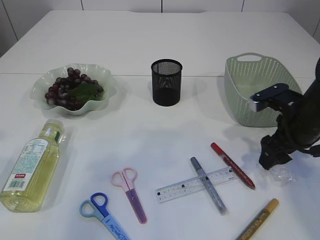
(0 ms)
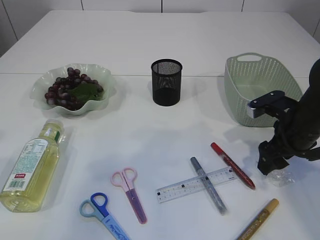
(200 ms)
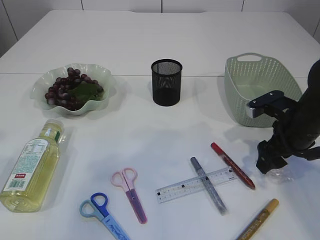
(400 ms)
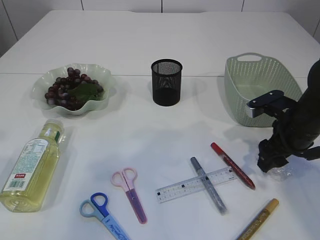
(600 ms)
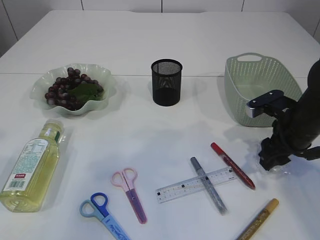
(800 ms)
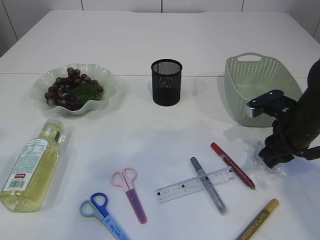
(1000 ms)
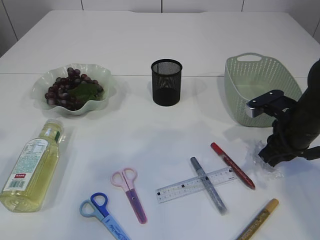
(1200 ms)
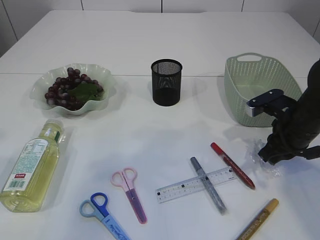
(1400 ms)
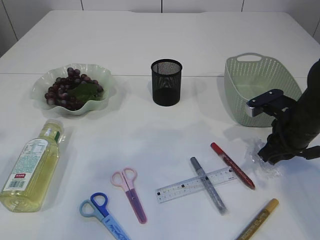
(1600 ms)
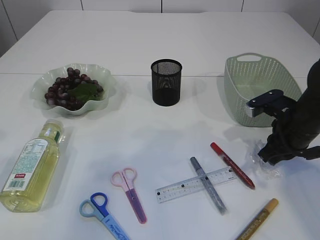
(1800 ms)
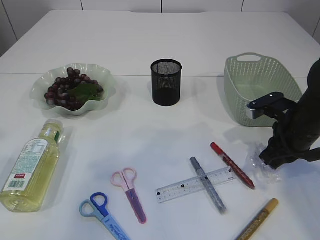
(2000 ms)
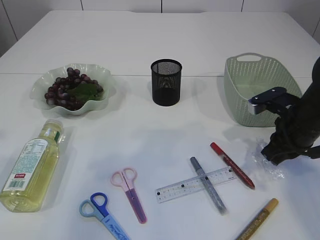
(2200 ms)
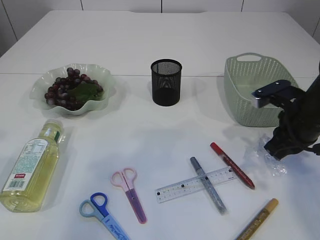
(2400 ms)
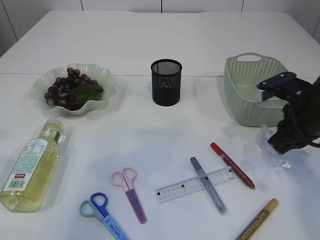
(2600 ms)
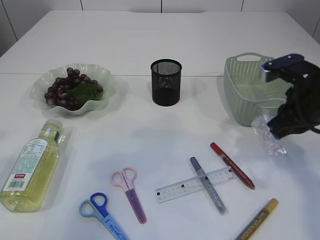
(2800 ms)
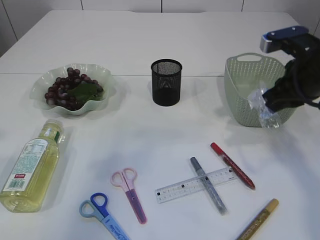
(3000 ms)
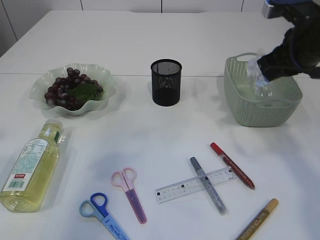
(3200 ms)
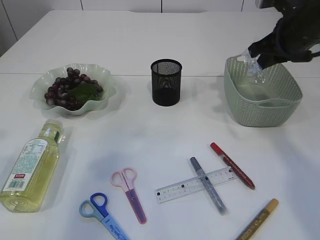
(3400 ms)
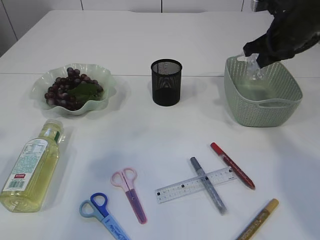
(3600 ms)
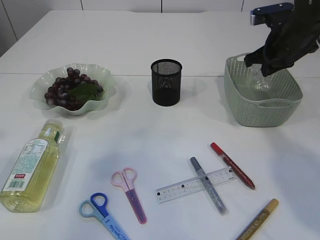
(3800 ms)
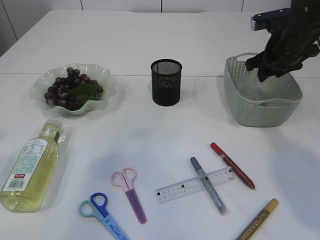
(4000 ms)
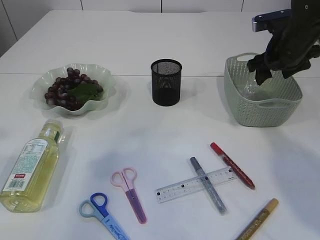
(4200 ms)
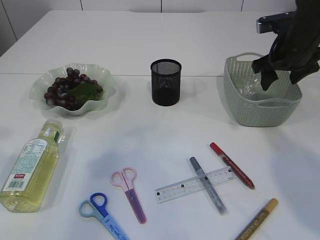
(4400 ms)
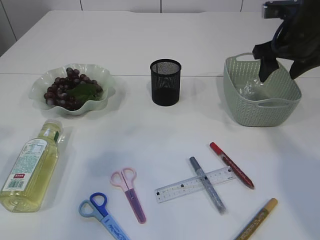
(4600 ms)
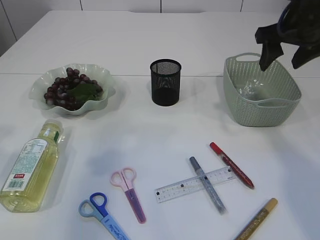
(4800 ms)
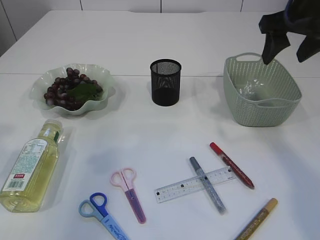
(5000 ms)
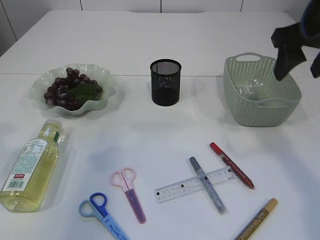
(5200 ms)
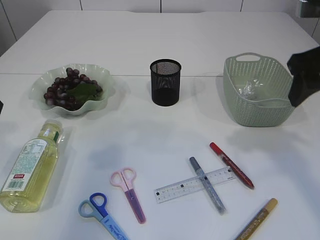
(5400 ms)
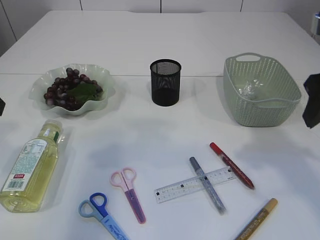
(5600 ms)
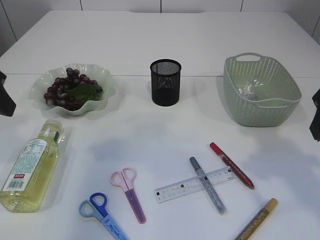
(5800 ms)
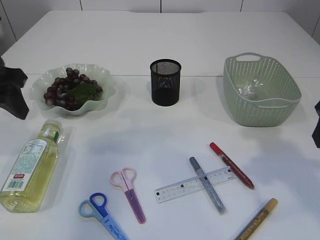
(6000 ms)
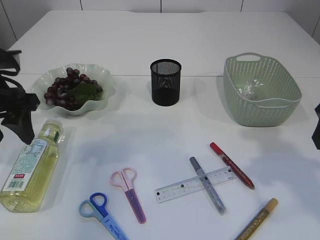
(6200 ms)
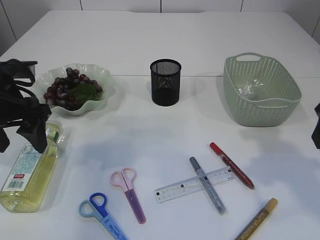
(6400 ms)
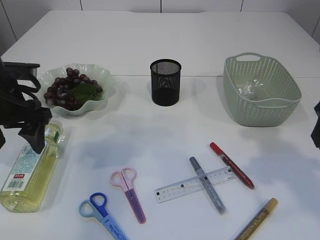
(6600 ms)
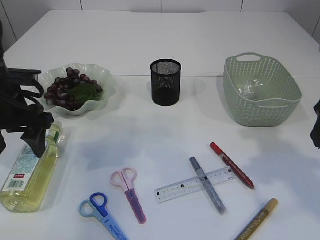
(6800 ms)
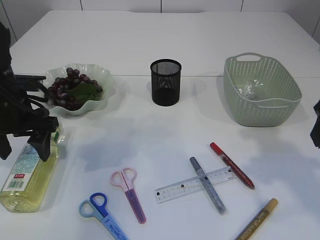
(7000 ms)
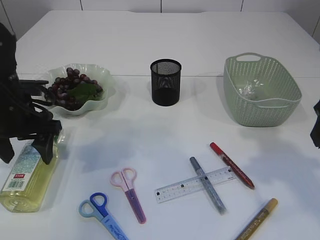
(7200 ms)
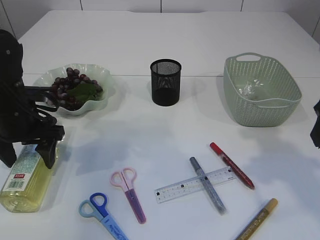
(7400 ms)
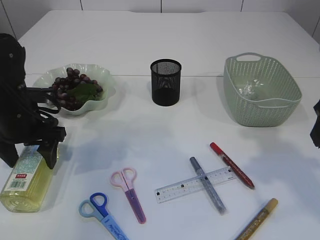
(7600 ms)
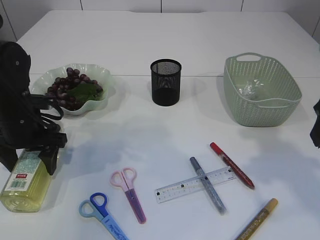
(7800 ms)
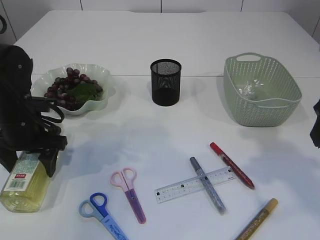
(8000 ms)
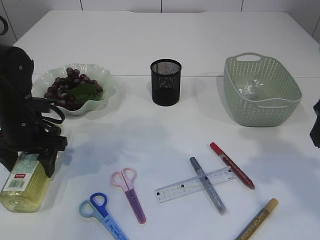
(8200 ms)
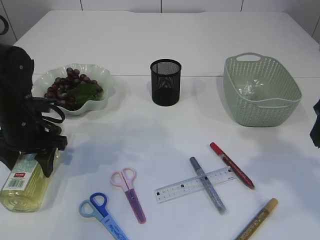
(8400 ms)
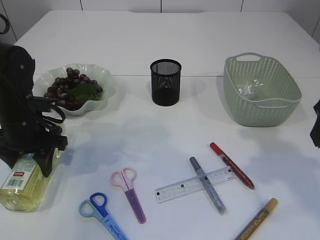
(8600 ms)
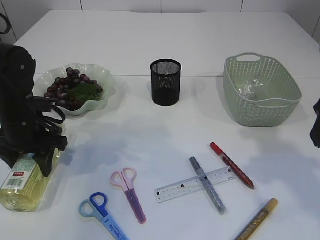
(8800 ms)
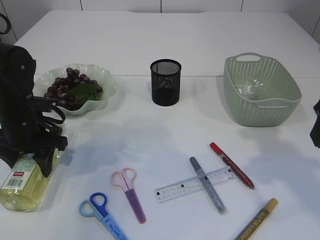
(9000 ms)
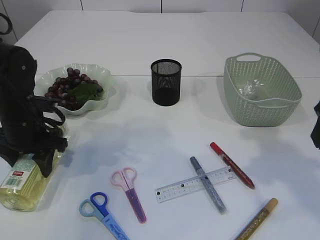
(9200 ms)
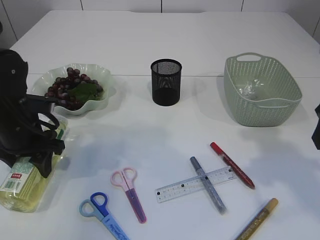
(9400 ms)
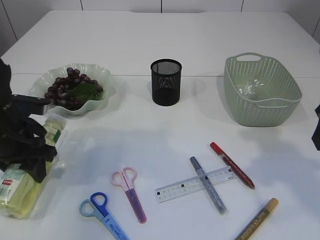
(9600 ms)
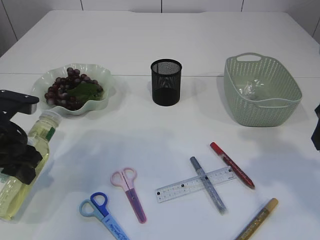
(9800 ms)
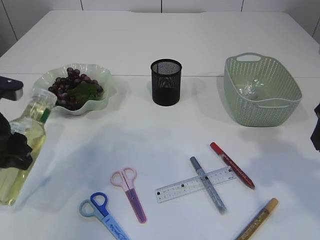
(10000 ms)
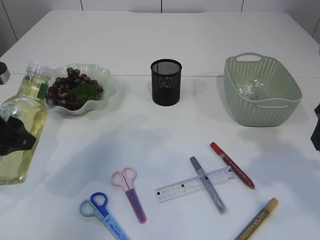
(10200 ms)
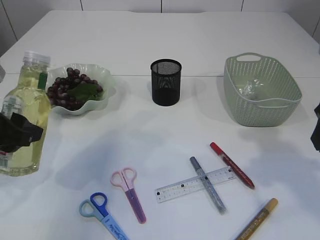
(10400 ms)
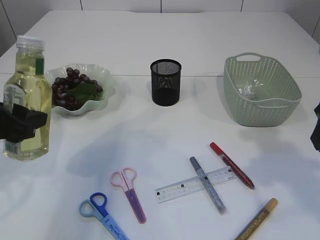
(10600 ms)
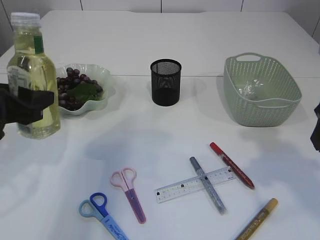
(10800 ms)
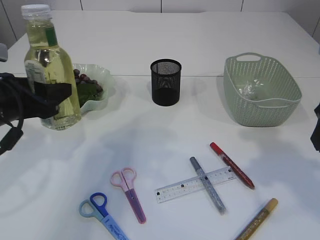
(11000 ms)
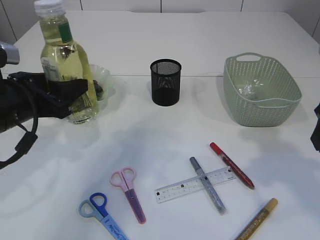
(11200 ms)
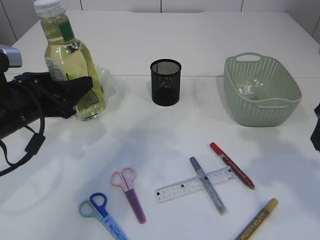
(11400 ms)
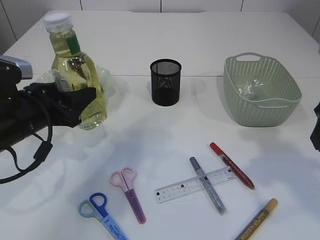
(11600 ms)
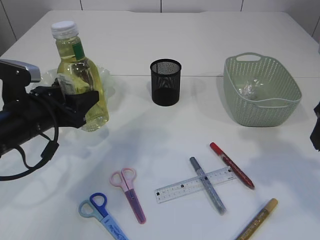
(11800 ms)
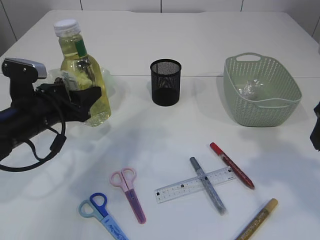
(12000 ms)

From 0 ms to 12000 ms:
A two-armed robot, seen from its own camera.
Step, from 0 ms to 2600 ms: Pick up the plastic.
Step, from 2800 ms to 5000 ms: Place the plastic in the basket.
Step, from 5200 ms to 10200 ms: Pick up the bottle with the left arm.
From 0 ms to 1600 ms: The right gripper closes up.
From 1600 ms to 3000 ms: The right gripper heads upward, covering roughly 10 cm.
From 3000 ms to 4400 ms: The right gripper shifts some 10 cm forward, and opens its fingers.
From 4400 ms to 6000 ms: The right gripper goes approximately 20 cm backward, while the left gripper shifts approximately 10 cm forward.
From 6000 ms to 7600 ms: The left gripper goes about 10 cm downward, and opens.
From 7600 ms to 9000 ms: The left gripper closes its fingers.
From 9000 ms to 10400 ms: The left gripper travels backward and upward by about 15 cm.
From 10400 ms to 12000 ms: The left gripper goes about 10 cm forward and downward.

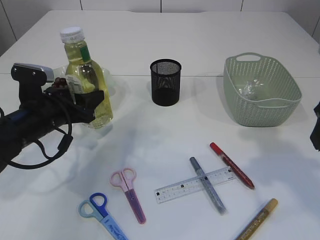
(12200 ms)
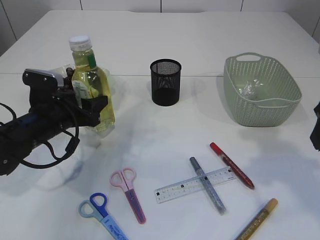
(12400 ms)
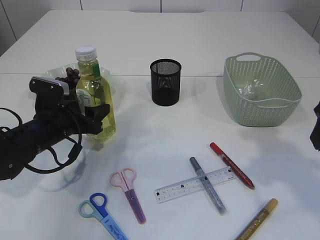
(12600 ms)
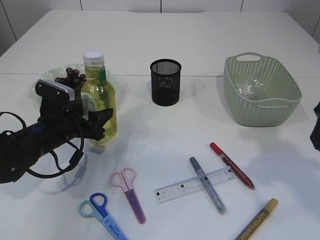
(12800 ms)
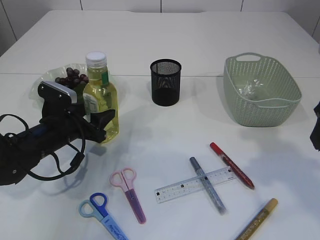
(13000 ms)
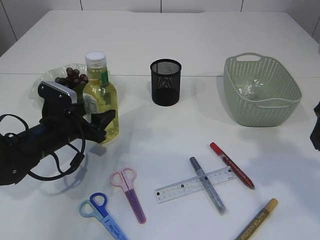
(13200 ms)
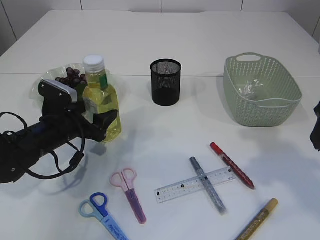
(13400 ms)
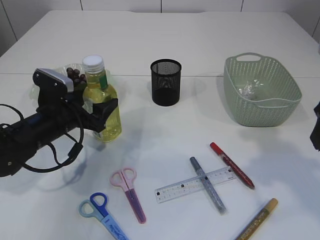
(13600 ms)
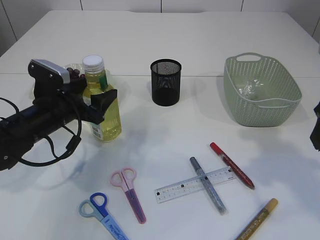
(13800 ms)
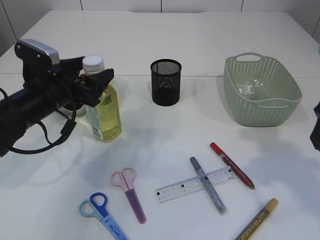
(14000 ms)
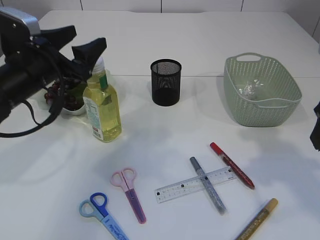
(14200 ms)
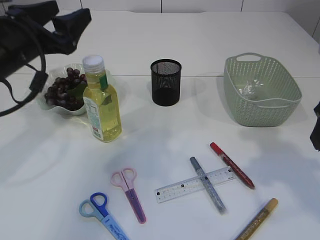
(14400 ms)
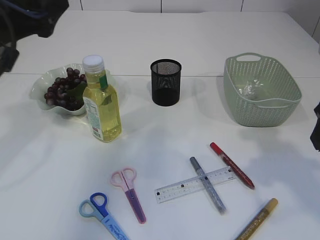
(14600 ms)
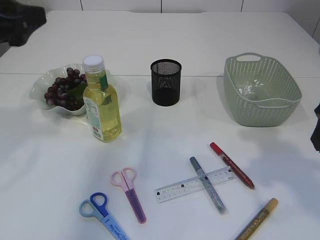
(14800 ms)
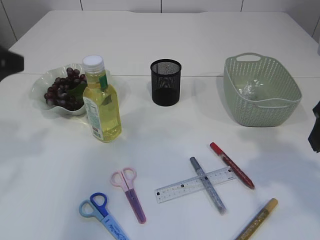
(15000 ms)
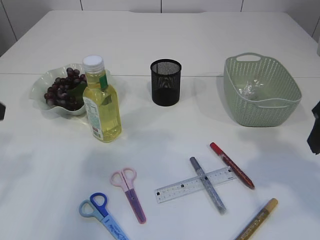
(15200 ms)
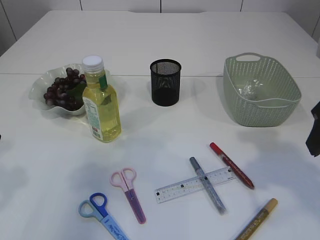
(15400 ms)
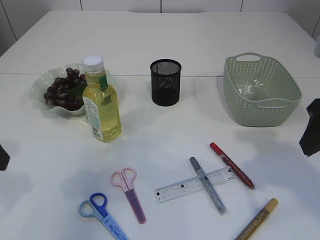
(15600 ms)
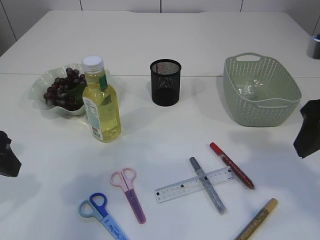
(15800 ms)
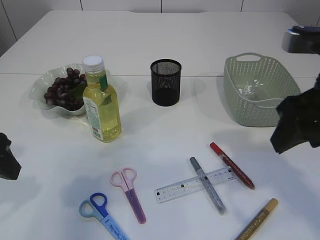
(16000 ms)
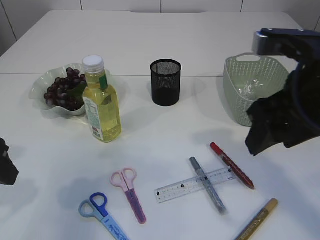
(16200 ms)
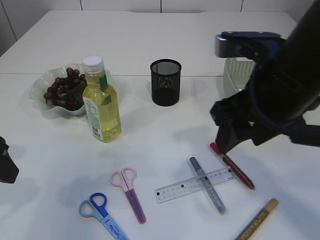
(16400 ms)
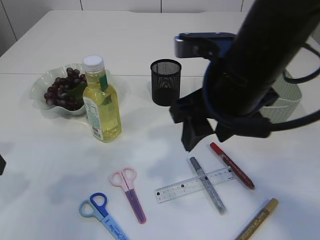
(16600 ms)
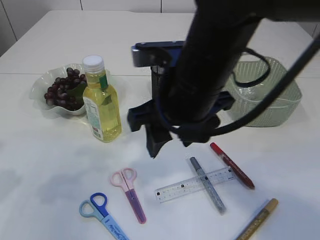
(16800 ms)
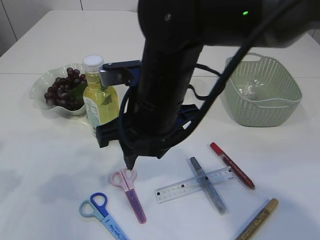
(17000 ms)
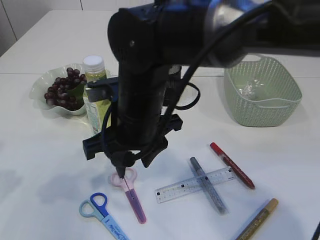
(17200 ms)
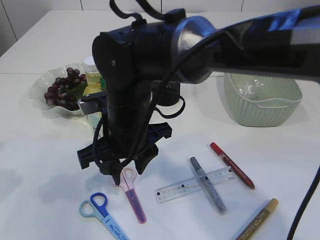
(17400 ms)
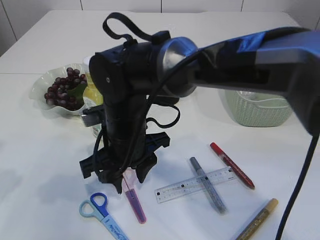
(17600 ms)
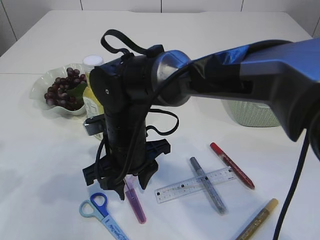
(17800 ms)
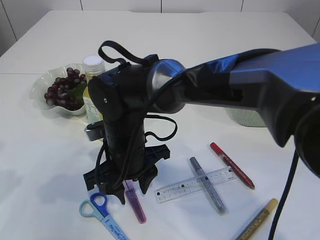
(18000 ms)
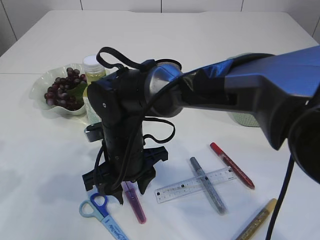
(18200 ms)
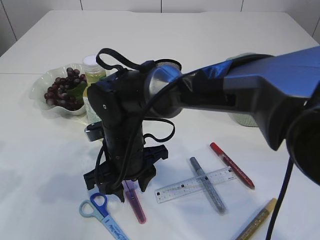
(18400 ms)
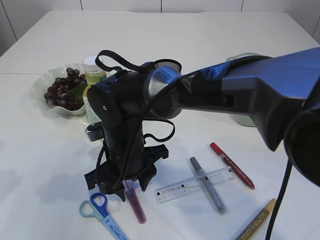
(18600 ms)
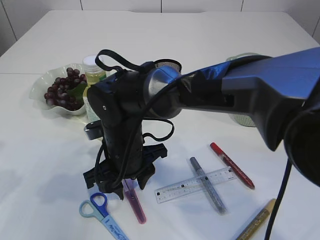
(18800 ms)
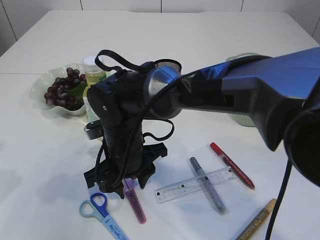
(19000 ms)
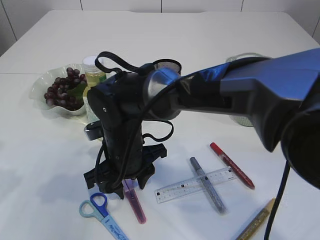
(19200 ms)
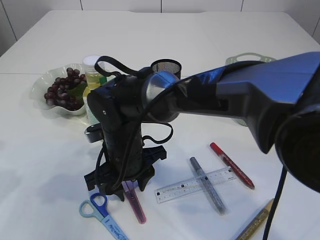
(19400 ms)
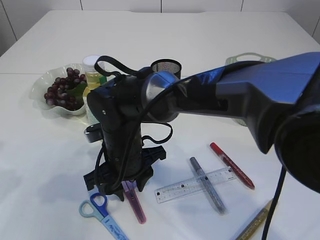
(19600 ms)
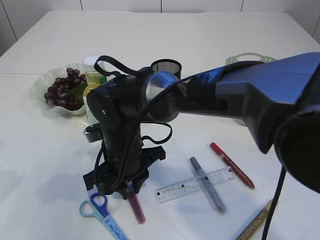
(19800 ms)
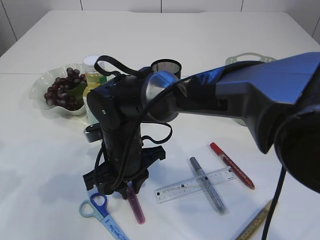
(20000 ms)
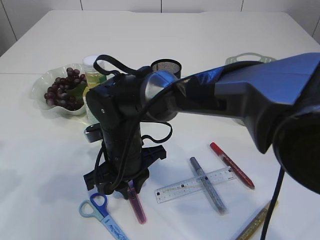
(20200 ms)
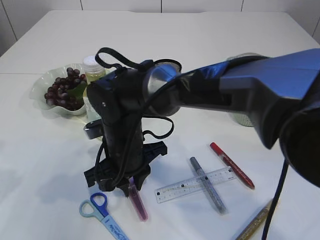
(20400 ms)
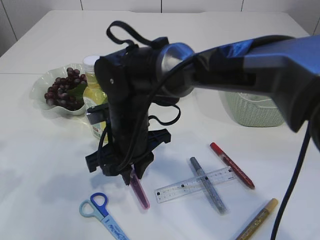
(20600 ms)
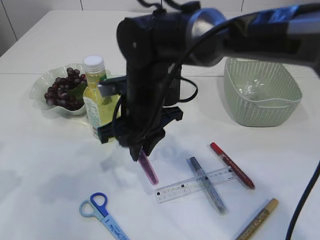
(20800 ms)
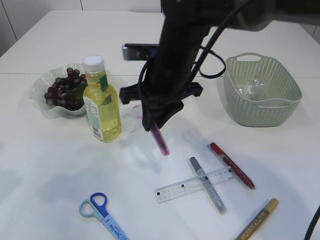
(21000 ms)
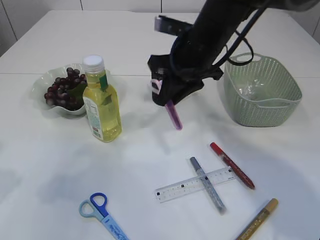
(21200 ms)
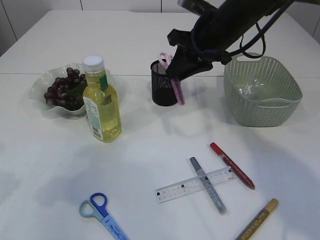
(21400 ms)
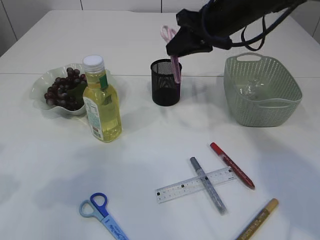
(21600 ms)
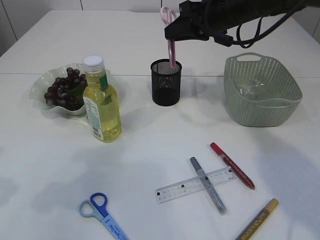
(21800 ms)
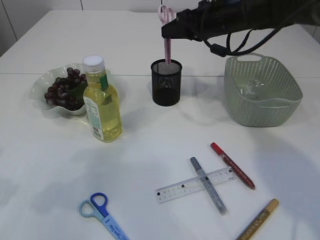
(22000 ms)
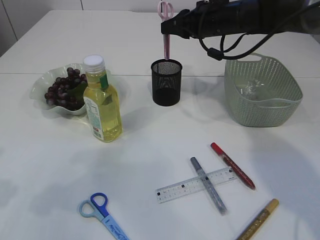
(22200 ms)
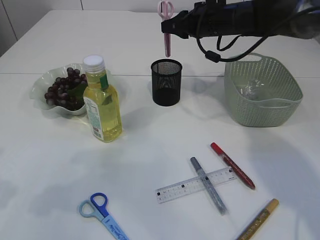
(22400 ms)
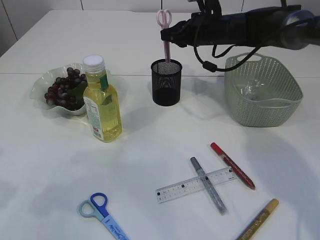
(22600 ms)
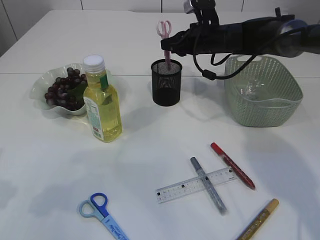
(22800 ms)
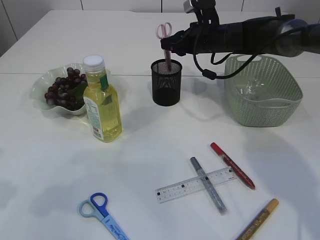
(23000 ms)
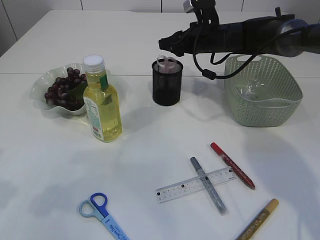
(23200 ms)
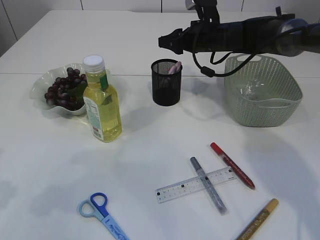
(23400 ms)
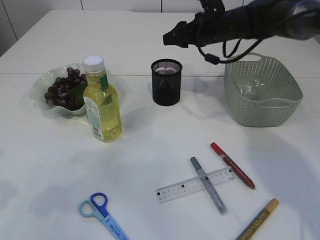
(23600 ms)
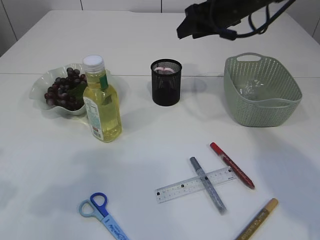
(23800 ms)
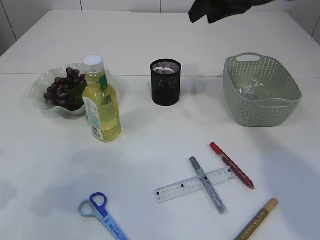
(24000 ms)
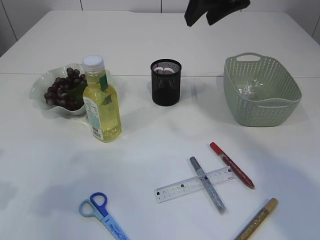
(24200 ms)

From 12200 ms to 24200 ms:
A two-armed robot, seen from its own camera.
Step, from 12200 ms to 14200 ms: Place the bottle.
Step, from 14400 ms to 20800 ms: pick up the pink scissors.
Step, from 21000 ms to 23200 ms: Place the pink scissors into the pen holder.
From 12200 ms to 13800 ms: The left gripper opens up.
From 13800 ms to 15200 ms: The left gripper travels upward, backward and to the left by about 25 cm.
From 15200 ms to 16600 ms: The right gripper moves to the left, about 15 cm.
From 16600 ms to 18200 ms: The right gripper travels downward and to the left by roughly 20 cm.
From 18200 ms to 19800 ms: The grippers stay close to where they were, moving slightly.
From 19800 ms to 21200 ms: The right gripper moves upward, to the right and forward, approximately 20 cm.
From 21200 ms to 22600 ms: The right gripper shifts about 15 cm forward and to the right.
From 22600 ms to 24200 ms: The right gripper heads upward and backward, covering some 20 cm, and opens.
